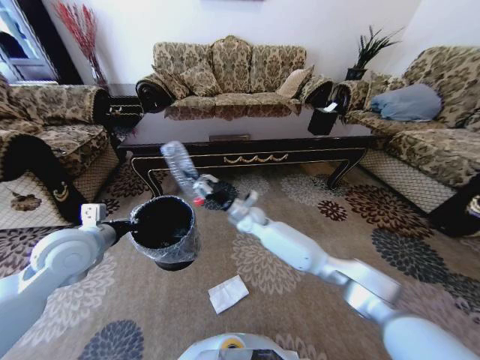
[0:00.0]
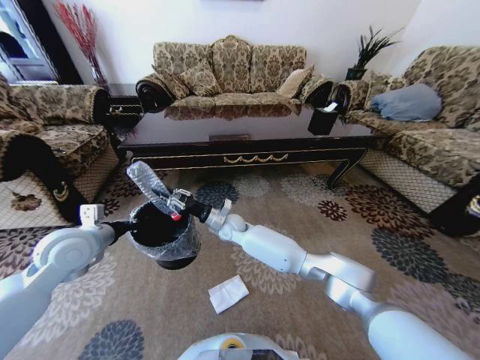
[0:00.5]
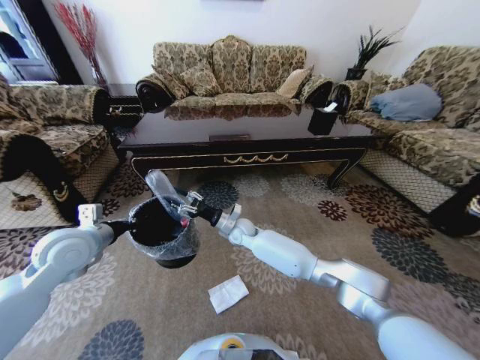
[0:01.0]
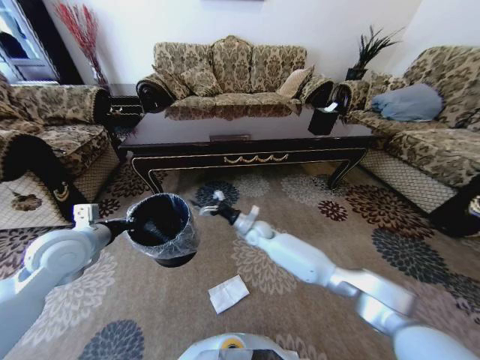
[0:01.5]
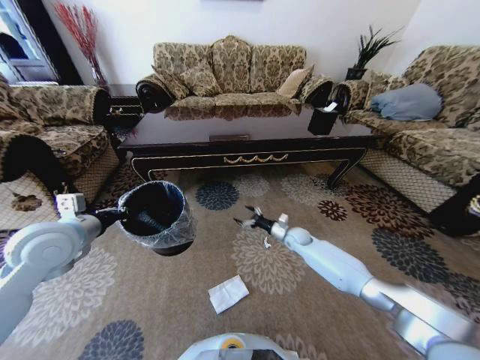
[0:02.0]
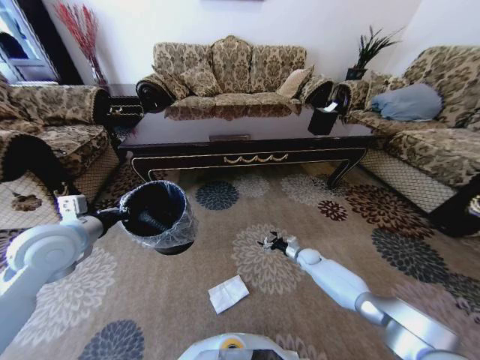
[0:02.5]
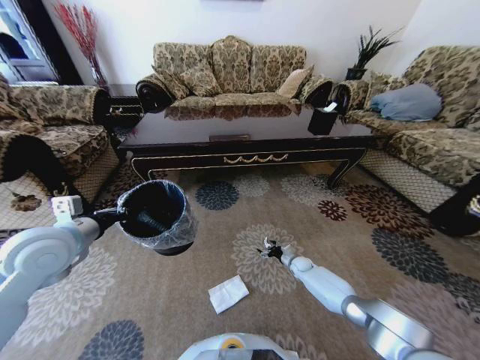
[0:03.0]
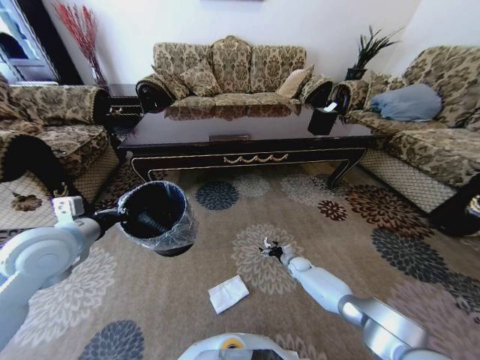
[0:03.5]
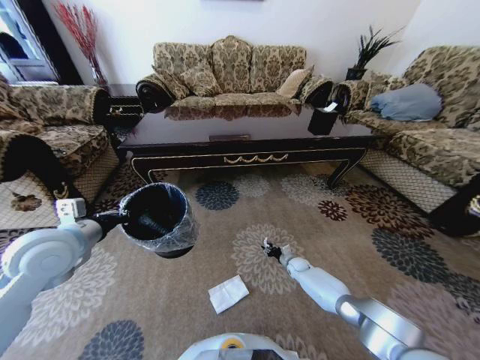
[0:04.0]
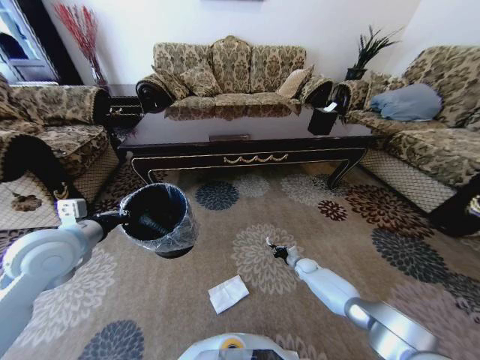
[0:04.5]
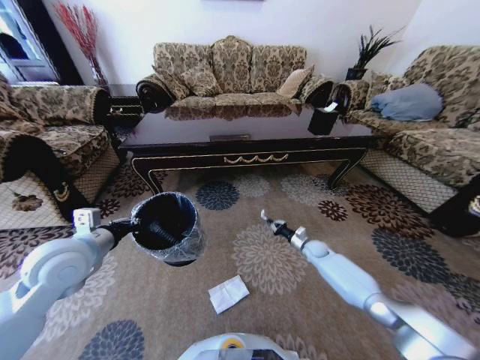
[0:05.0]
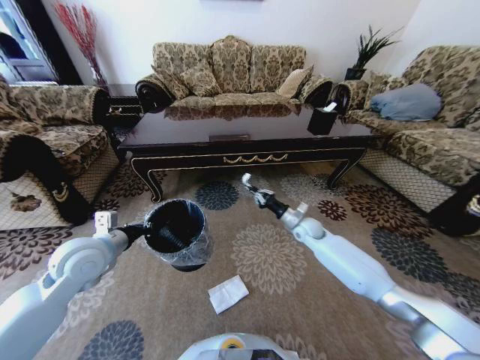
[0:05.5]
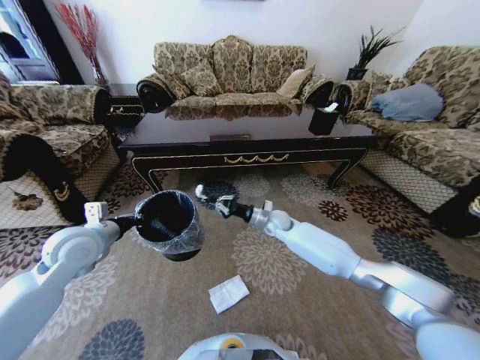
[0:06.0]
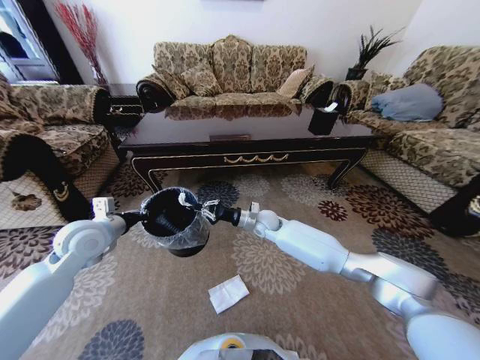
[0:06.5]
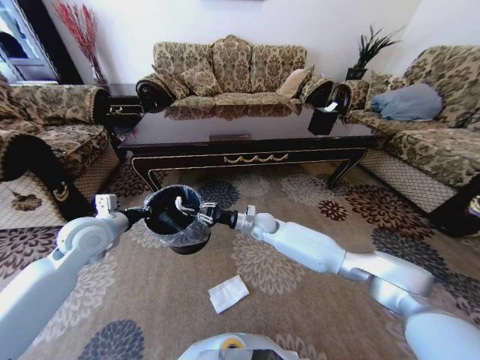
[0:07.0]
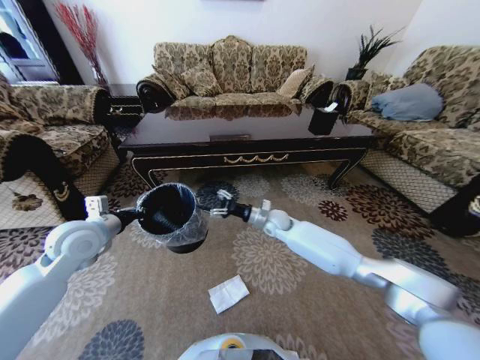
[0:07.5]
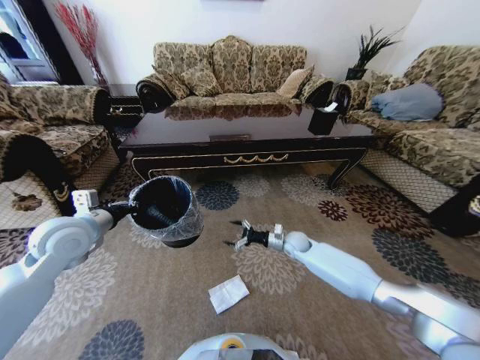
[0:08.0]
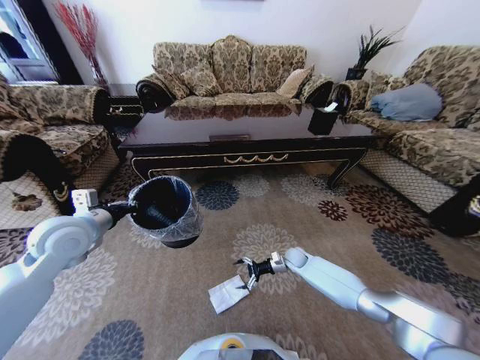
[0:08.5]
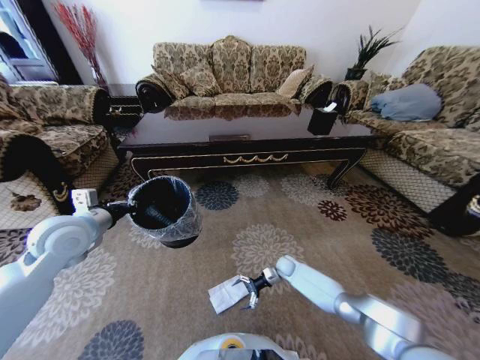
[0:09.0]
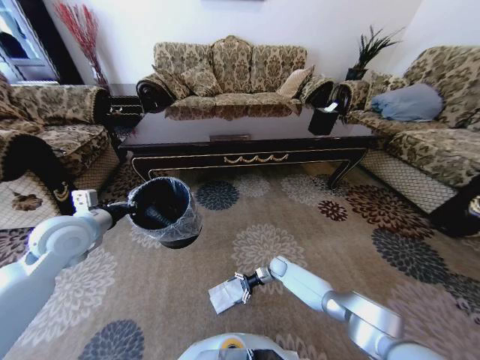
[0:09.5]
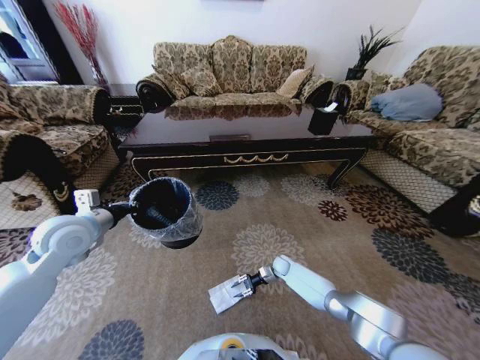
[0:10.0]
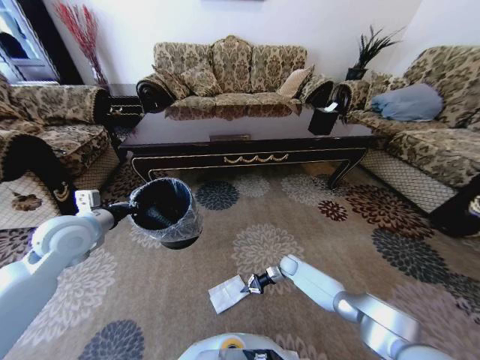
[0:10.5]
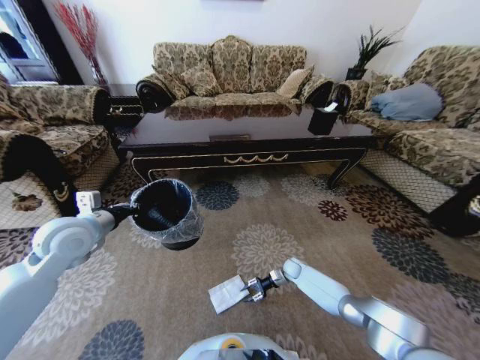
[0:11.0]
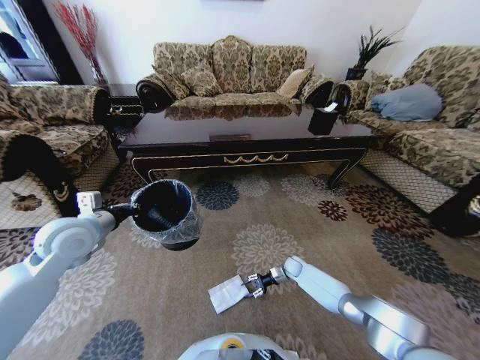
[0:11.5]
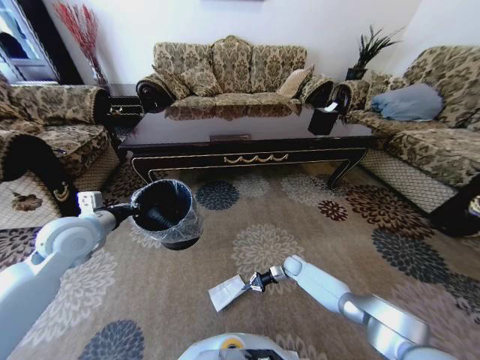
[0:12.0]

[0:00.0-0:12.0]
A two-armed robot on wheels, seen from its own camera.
Task of the whole recording: Move to the front of the table and pick up the trash from the floor, then place it into the trash bin.
0:00.0 to 0:02.0: The right gripper is displaced to the right and downward by some 25 cm, and opens up.
0:02.0 to 0:04.0: The right gripper shifts approximately 15 cm downward, and closes.
0:04.0 to 0:06.0: The left gripper shifts by approximately 5 cm; the right gripper is displaced upward and to the left by approximately 30 cm, and closes.
0:06.0 to 0:08.0: The right gripper travels downward and to the right by roughly 10 cm, and opens its fingers.
0:08.0 to 0:10.0: The right gripper travels downward by approximately 15 cm, and closes up.
0:10.0 to 0:12.0: The right gripper closes up.

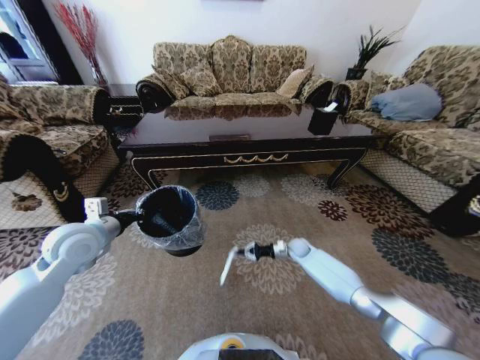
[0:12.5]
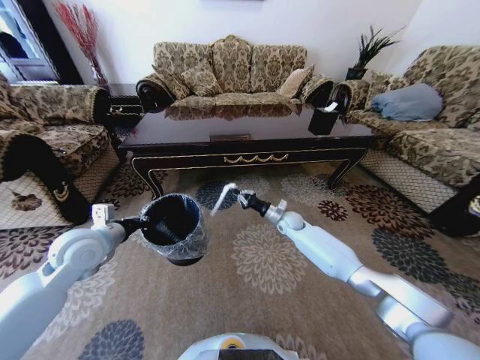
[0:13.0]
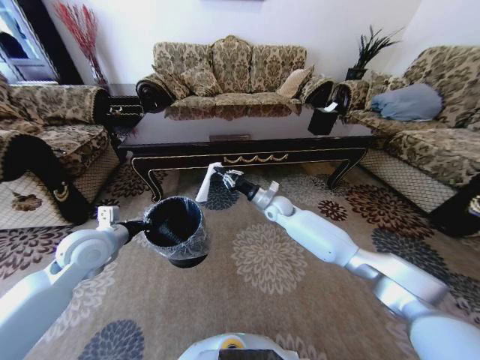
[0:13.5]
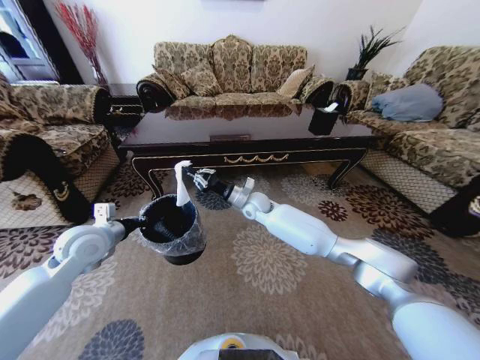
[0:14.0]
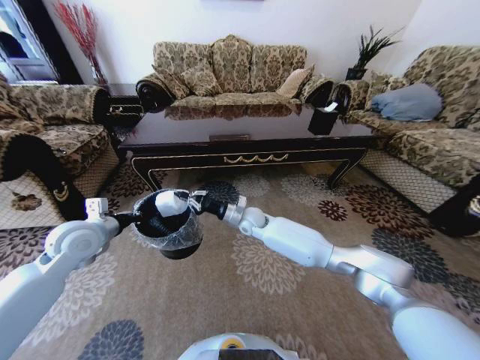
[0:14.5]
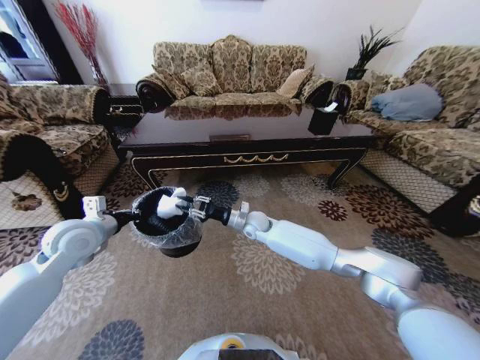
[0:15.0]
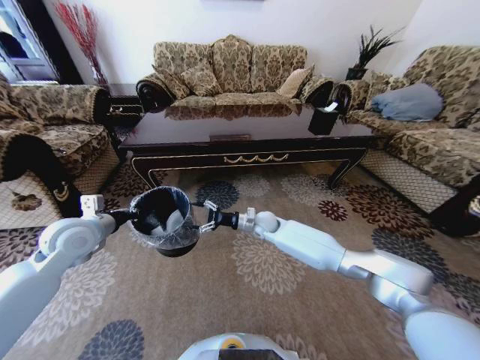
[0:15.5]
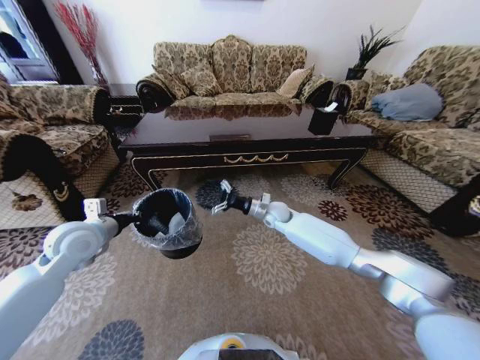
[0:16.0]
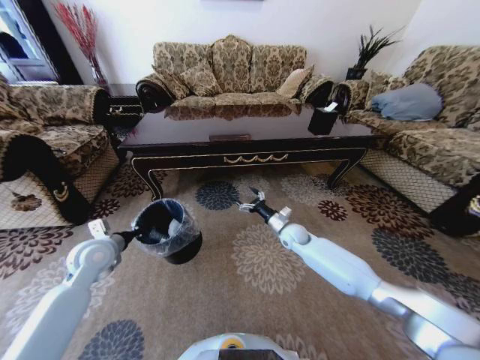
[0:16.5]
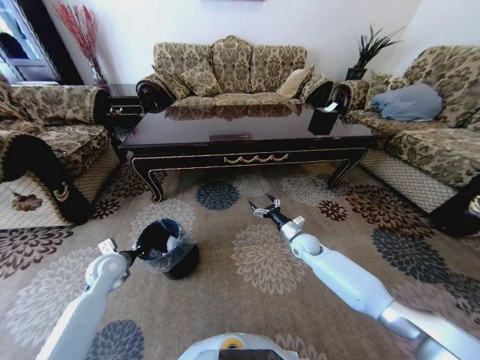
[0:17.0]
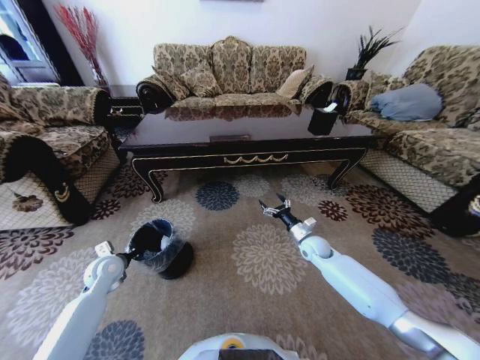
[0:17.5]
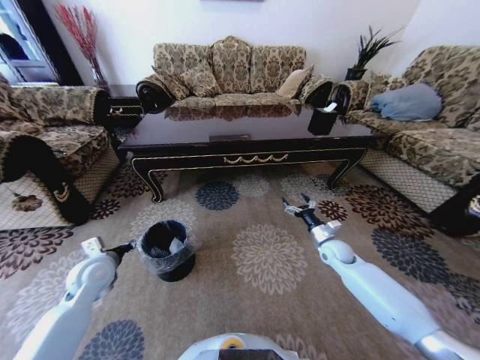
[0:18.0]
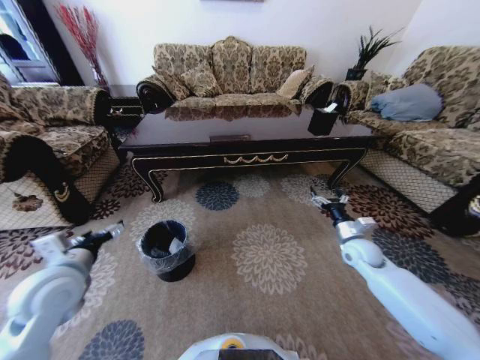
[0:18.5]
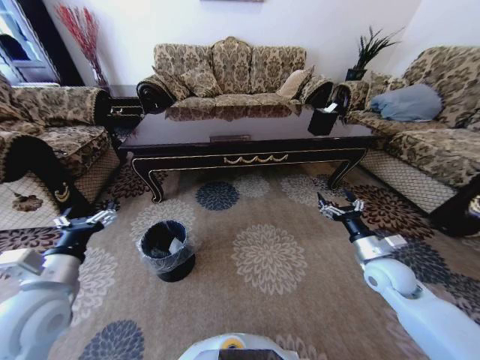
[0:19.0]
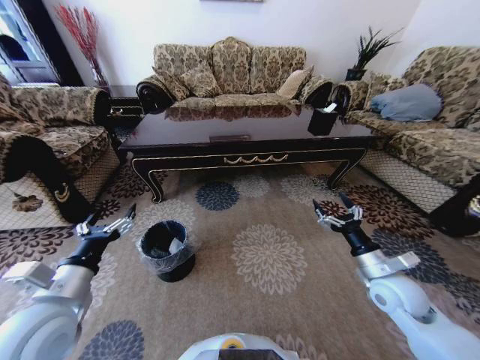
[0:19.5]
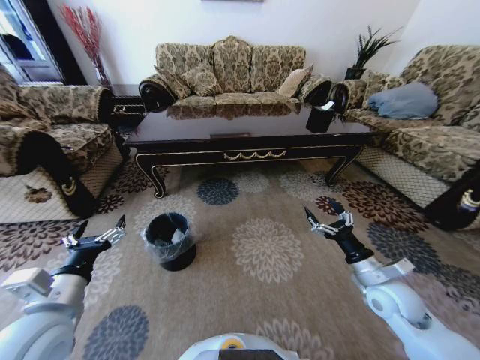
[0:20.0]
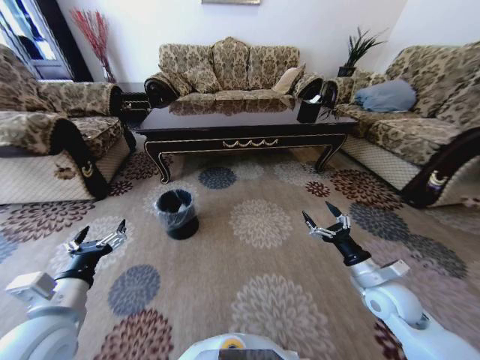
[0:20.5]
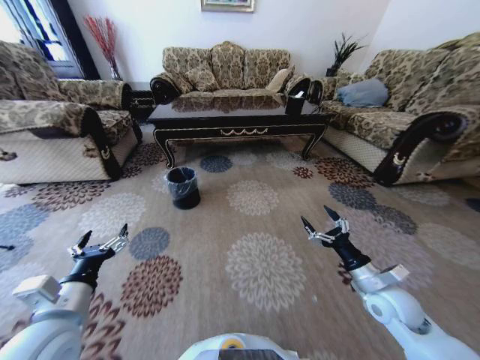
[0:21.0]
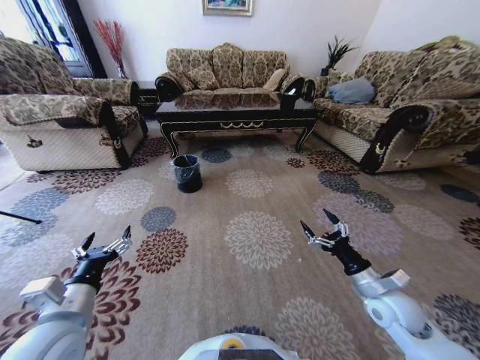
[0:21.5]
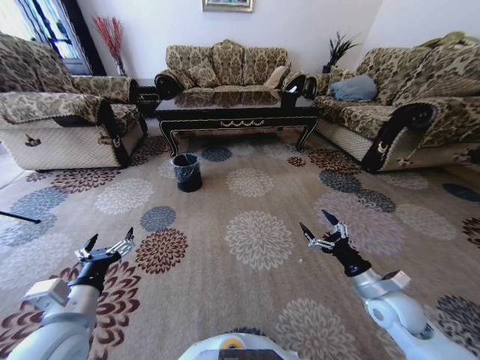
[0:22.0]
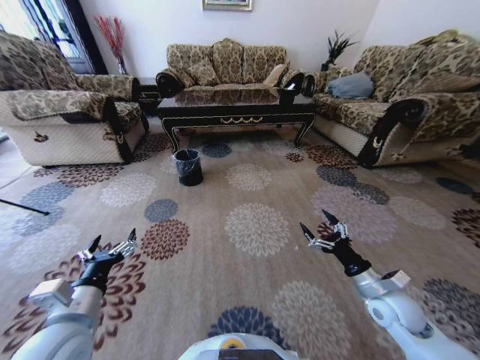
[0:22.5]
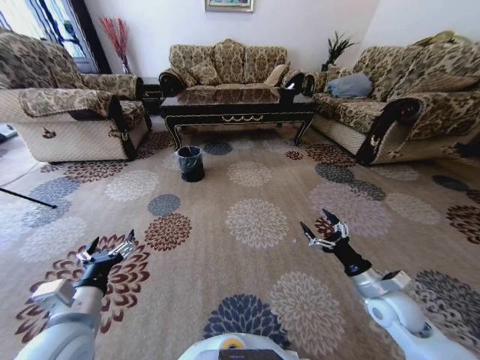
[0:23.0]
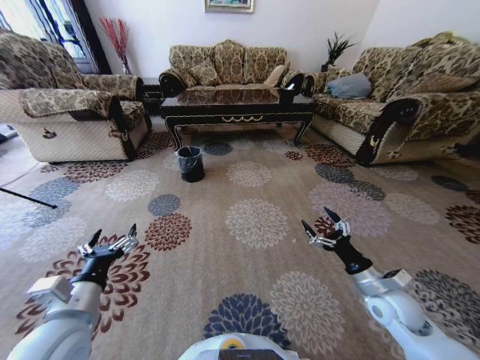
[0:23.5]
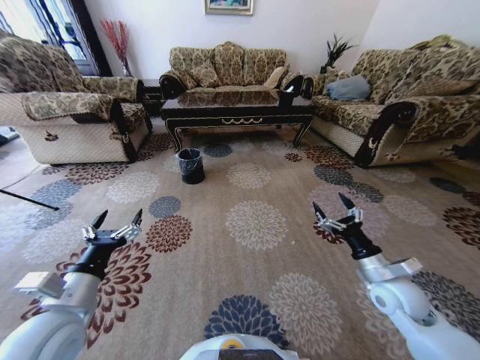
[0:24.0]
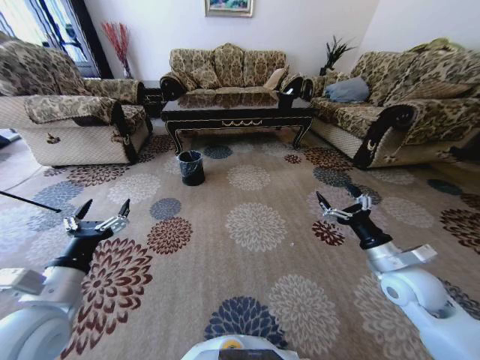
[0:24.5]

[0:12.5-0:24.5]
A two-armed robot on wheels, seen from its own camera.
Task of the whole recording: Move to the front of the table and pick up the trash from the floor, then place it into the trash bin.
0:12.5 to 0:14.5: The right gripper travels to the left and upward by roughly 30 cm.
0:14.5 to 0:16.5: The right gripper moves to the right and downward, roughly 20 cm, and opens its fingers, while the left gripper moves downward, approximately 10 cm.
0:16.5 to 0:18.5: The left gripper shifts roughly 10 cm backward and upward, and opens up; the right gripper moves to the right and backward, some 20 cm.
0:18.5 to 0:20.5: The left gripper moves backward, about 10 cm. The right gripper shifts some 15 cm backward.
0:22.5 to 0:24.5: The left gripper ends up about 5 cm from where it was. Meanwhile the right gripper goes approximately 10 cm upward.

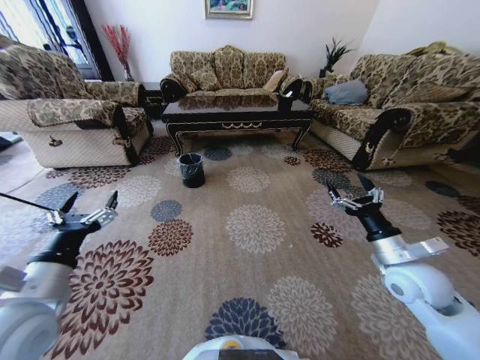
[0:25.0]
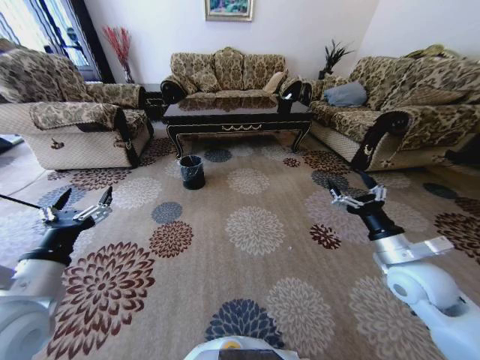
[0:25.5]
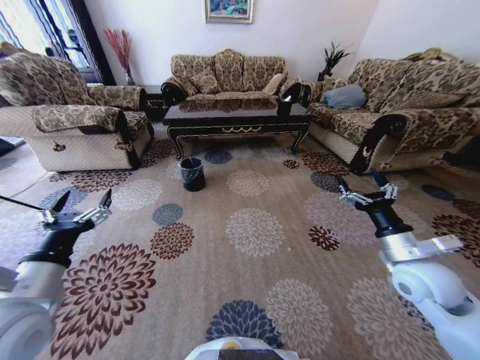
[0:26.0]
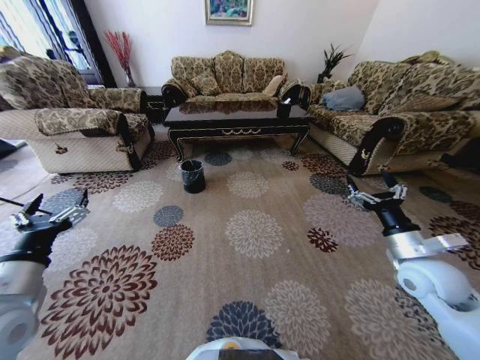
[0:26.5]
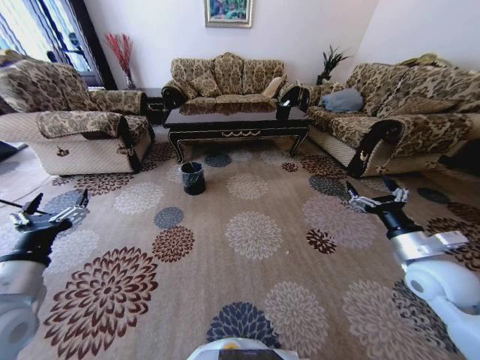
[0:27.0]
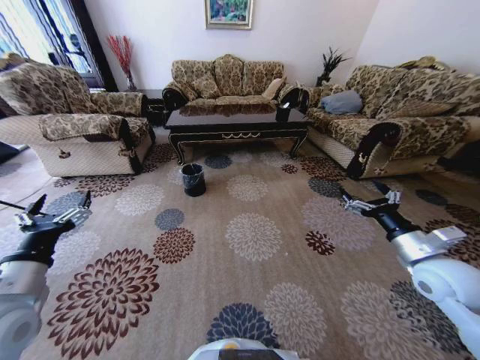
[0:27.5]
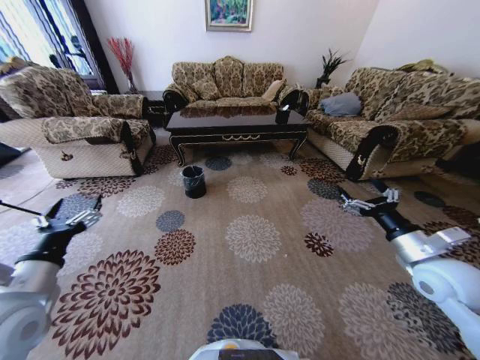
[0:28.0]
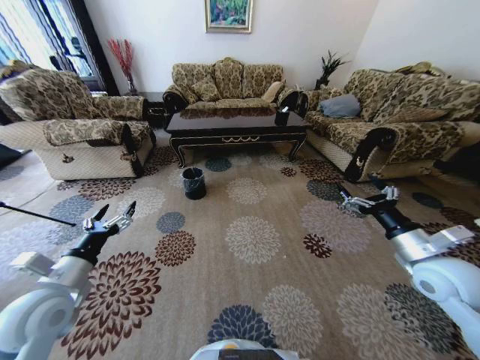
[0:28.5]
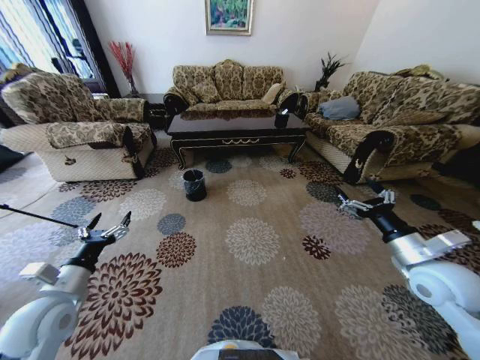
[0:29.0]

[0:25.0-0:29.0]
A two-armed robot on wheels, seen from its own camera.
Task of the whole recording: Move to the front of the table and pick up the trash from the floor, then place it into the trash bin.
0:27.0 to 0:29.0: The left gripper shifts approximately 10 cm downward.
